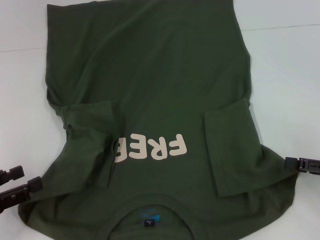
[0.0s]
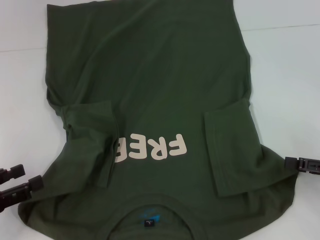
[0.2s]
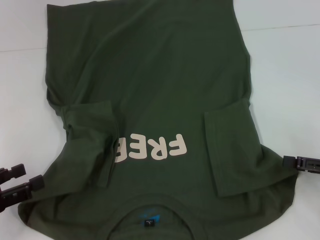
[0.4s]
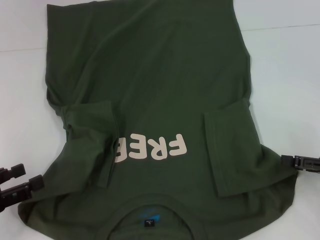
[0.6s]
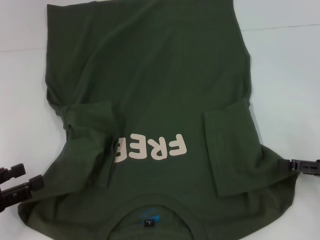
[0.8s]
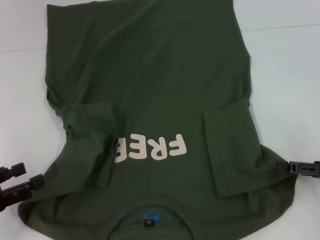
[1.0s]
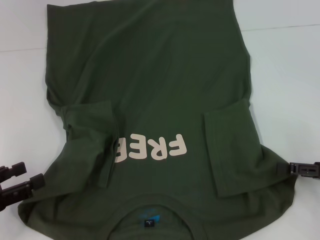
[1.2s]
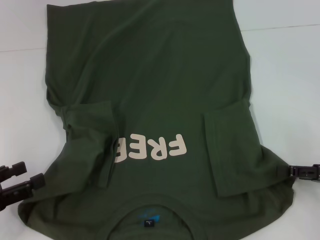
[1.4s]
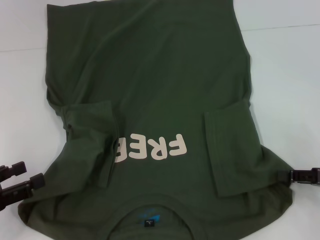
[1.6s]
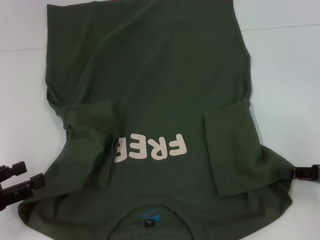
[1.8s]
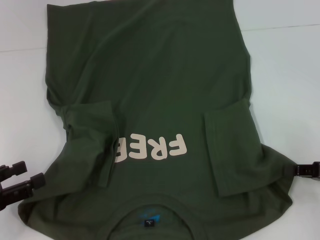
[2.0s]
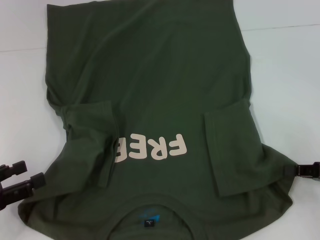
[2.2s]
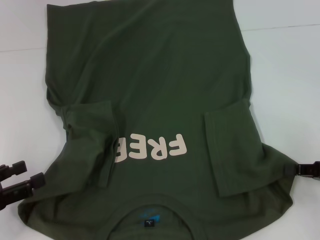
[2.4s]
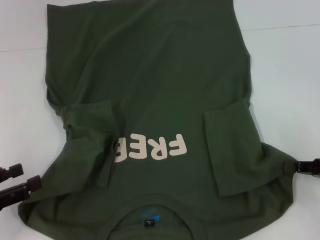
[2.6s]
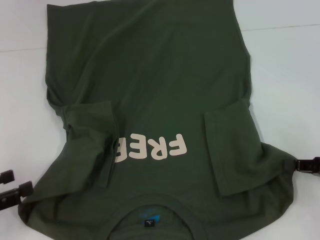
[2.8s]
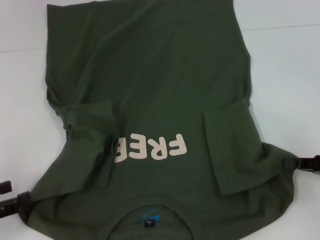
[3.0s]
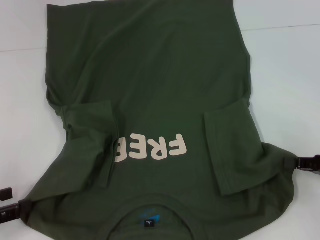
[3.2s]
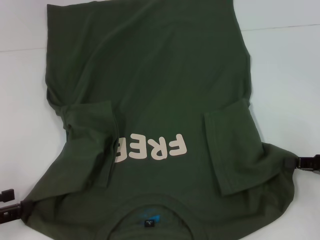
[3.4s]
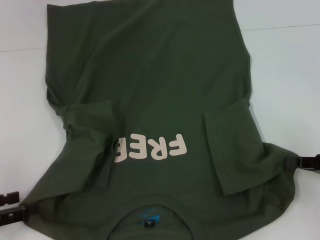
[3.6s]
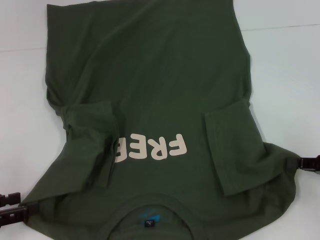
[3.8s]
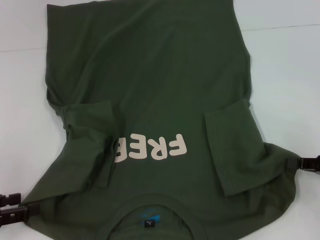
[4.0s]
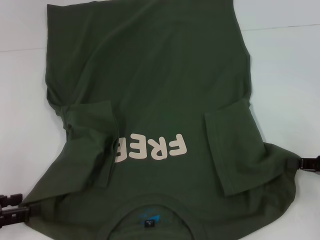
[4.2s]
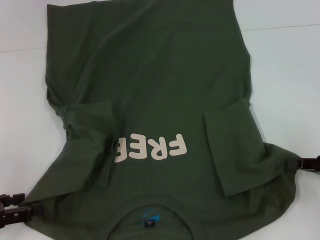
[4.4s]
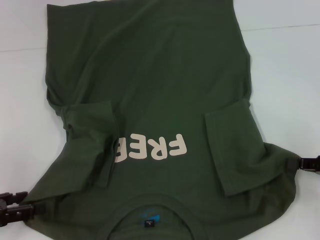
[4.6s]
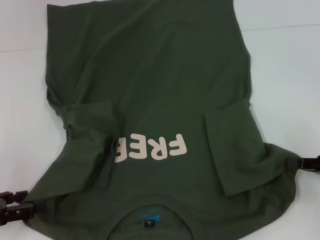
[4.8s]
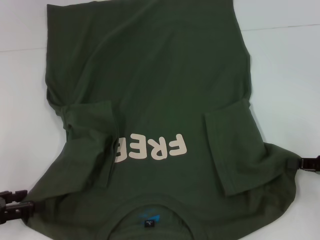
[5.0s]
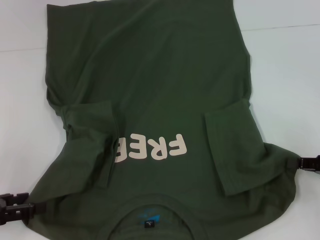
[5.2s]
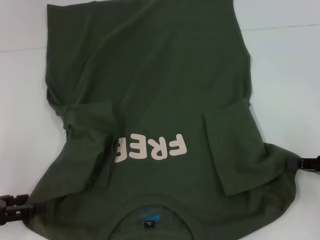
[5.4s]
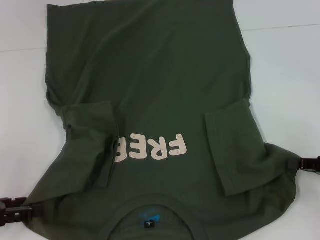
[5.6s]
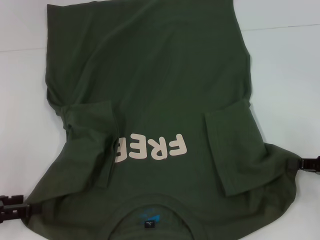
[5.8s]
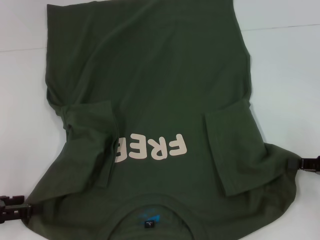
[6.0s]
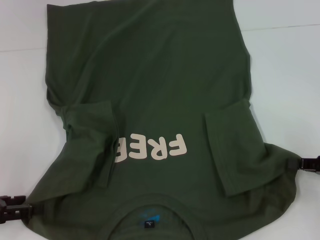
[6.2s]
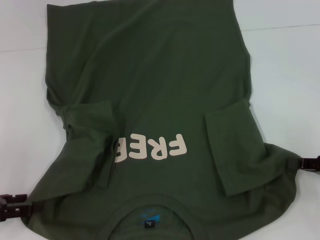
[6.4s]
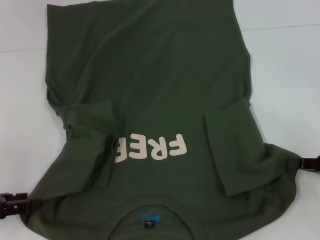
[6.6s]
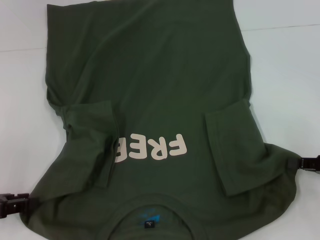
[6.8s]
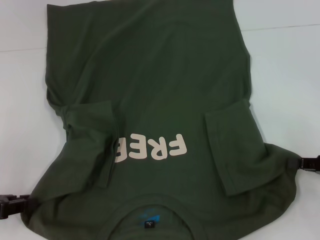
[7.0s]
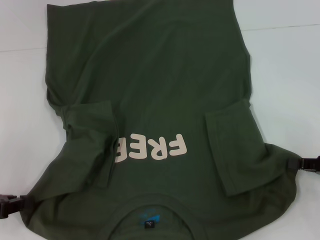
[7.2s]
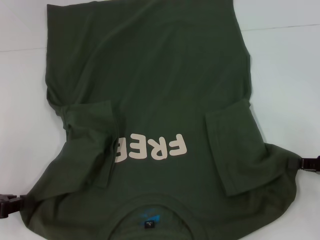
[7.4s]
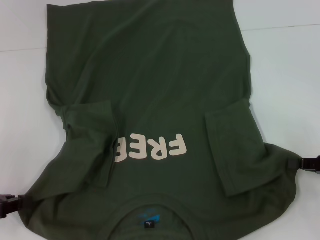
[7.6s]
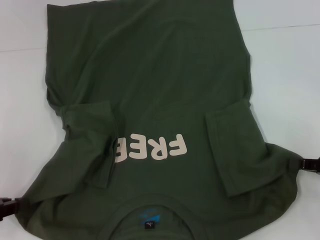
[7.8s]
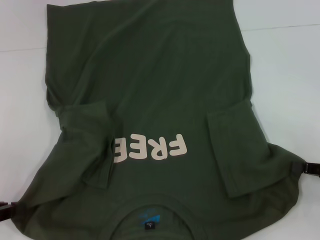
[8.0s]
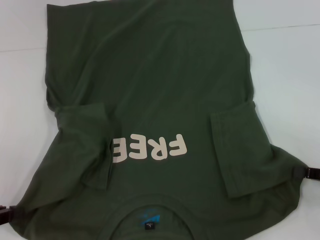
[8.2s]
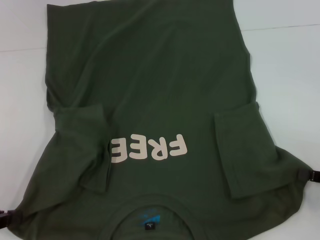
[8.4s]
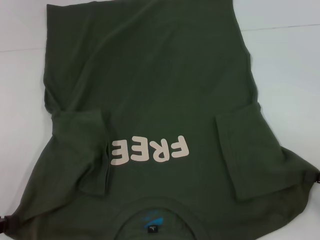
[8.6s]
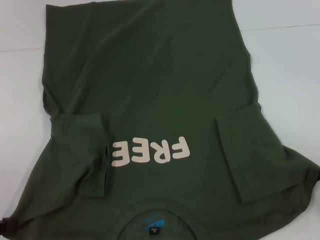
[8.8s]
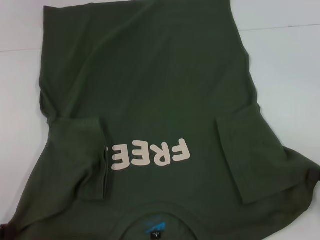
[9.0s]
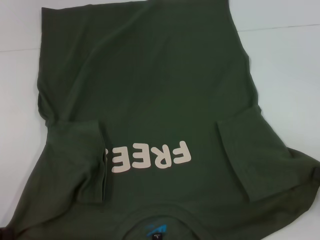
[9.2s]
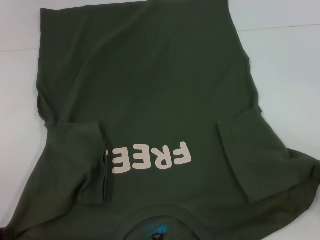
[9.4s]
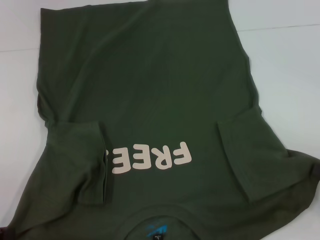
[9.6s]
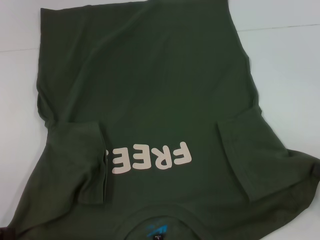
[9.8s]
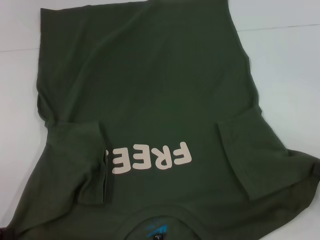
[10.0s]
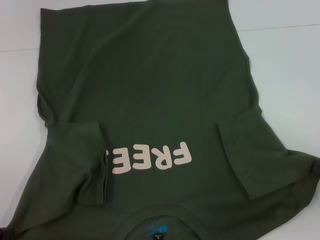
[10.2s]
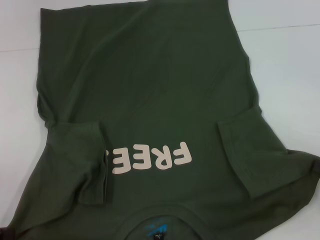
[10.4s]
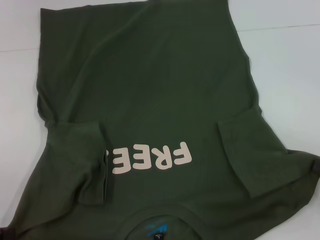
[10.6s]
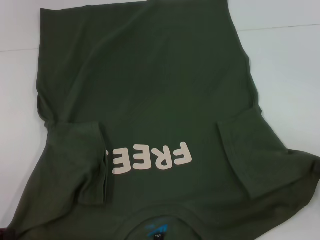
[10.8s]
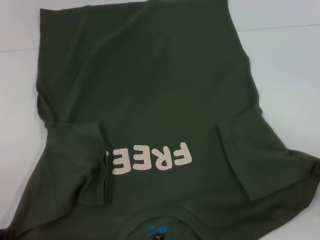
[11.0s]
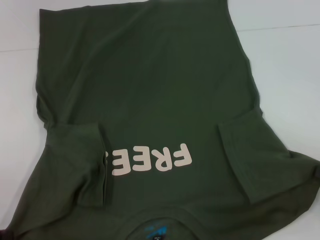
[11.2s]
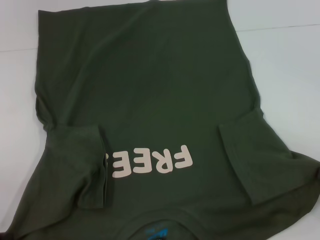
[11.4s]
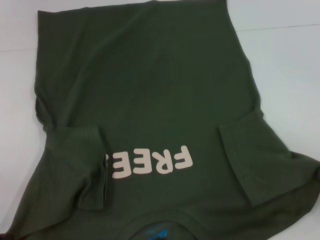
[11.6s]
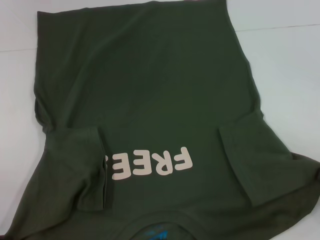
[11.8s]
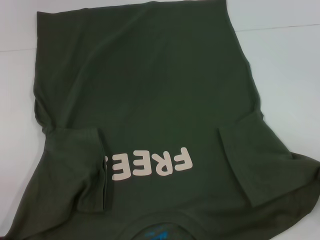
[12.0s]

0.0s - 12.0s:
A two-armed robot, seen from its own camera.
0.0s - 1.6s: The grippers move only a little.
1.6s - 3.0s: The right gripper closes up.
3.0s - 4.4s: There are only small adjustments of the grippers.
6.0s - 7.6s: The left gripper closes.
7.6s - 9.0s: The right gripper travels backward by some 5 cm.
9.0s - 10.4s: The two grippers keep their place.
10.4s - 12.0s: There are only small adjustments of the grippers.

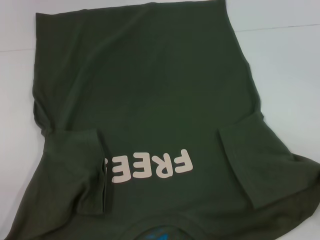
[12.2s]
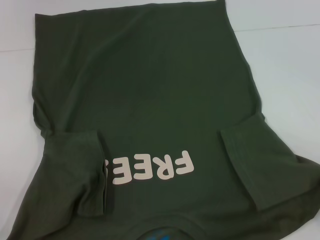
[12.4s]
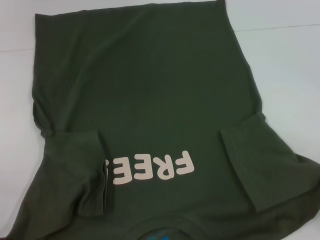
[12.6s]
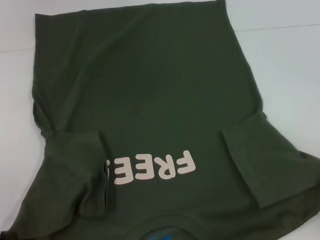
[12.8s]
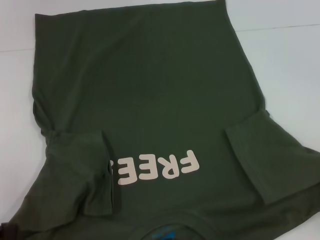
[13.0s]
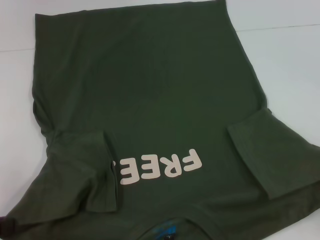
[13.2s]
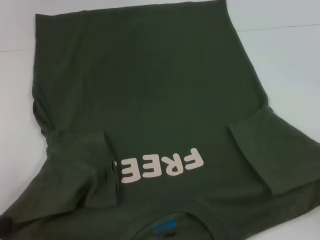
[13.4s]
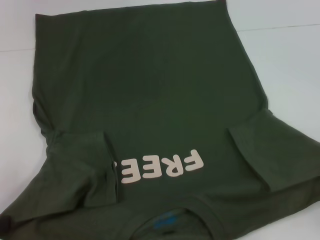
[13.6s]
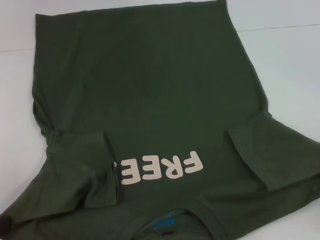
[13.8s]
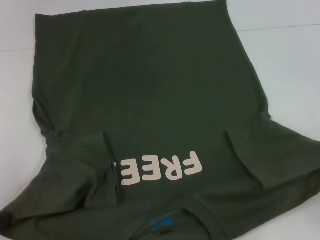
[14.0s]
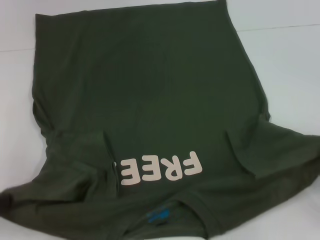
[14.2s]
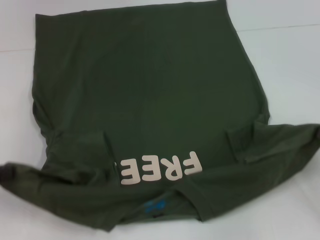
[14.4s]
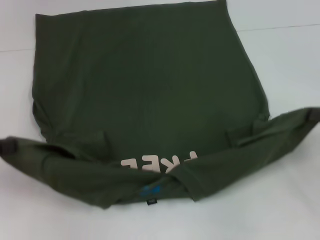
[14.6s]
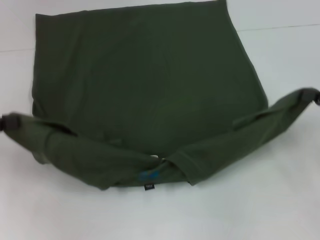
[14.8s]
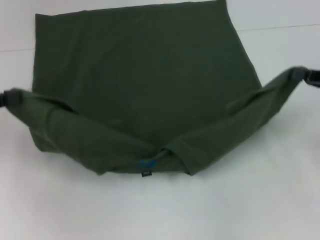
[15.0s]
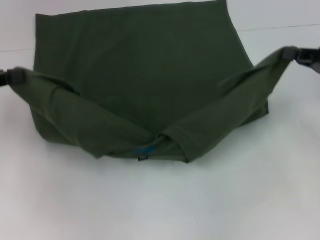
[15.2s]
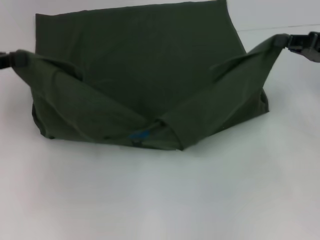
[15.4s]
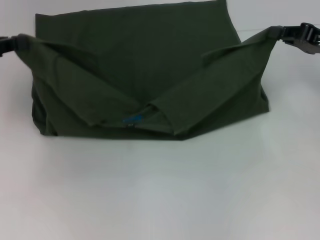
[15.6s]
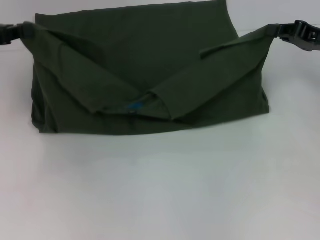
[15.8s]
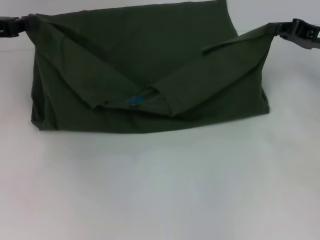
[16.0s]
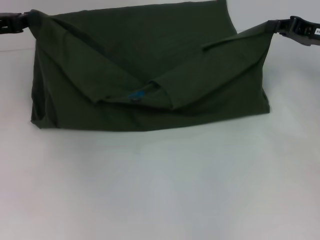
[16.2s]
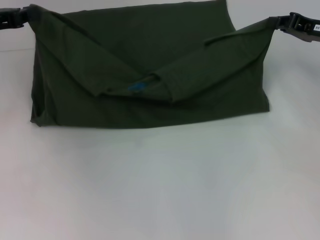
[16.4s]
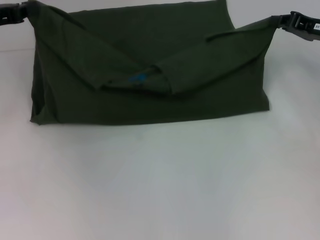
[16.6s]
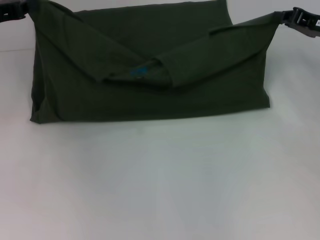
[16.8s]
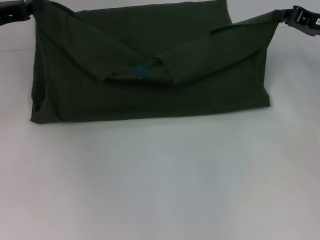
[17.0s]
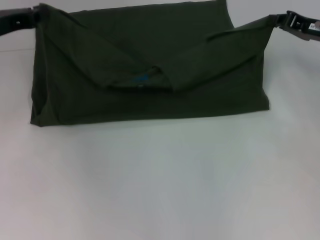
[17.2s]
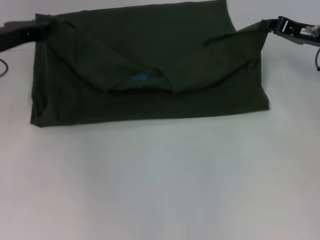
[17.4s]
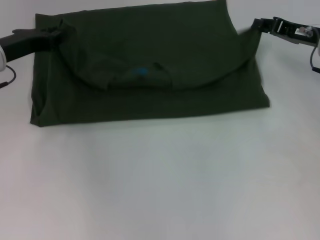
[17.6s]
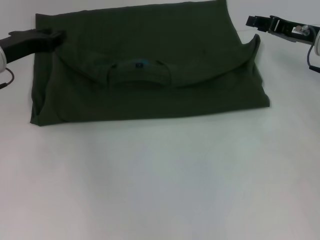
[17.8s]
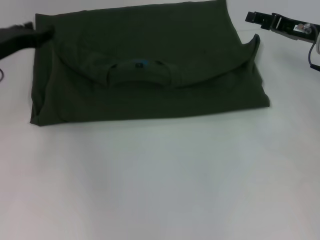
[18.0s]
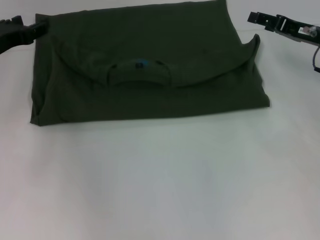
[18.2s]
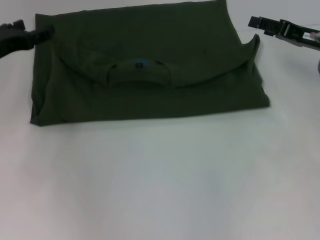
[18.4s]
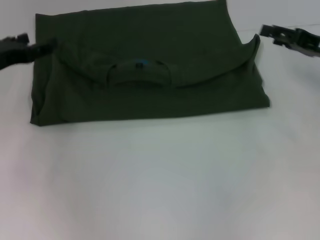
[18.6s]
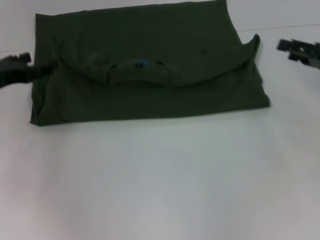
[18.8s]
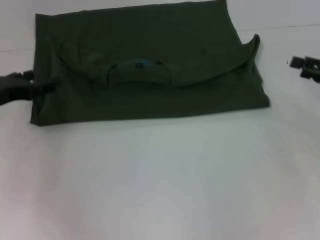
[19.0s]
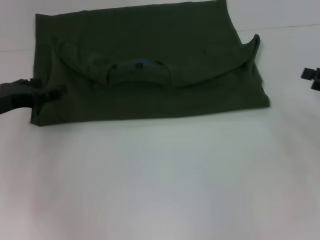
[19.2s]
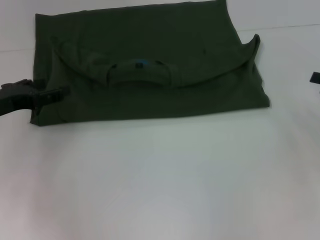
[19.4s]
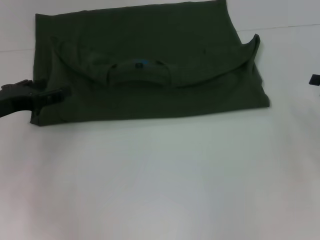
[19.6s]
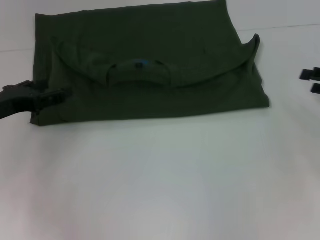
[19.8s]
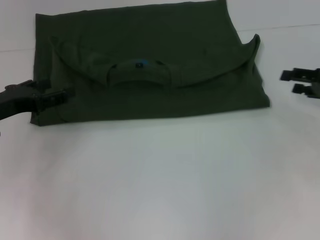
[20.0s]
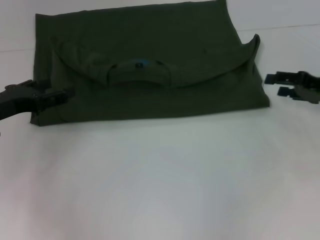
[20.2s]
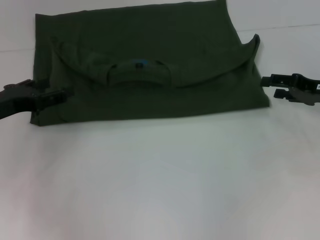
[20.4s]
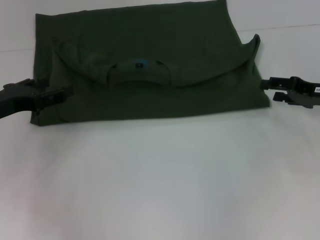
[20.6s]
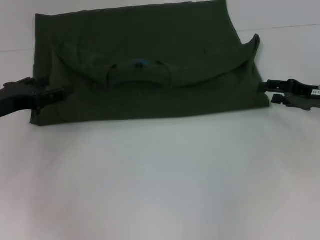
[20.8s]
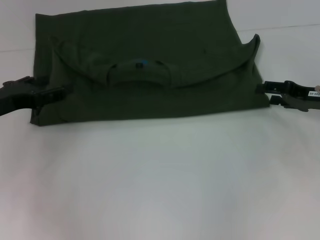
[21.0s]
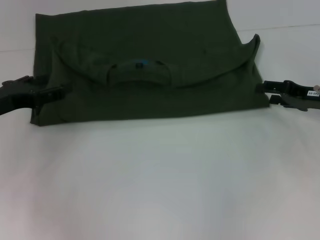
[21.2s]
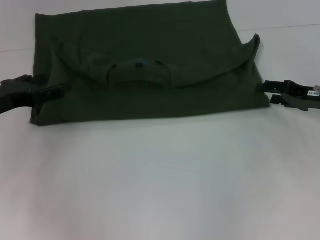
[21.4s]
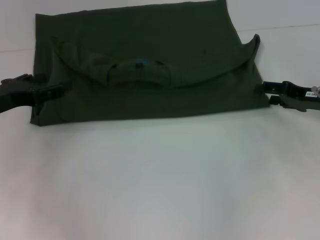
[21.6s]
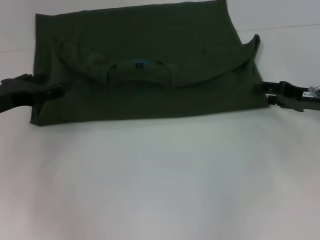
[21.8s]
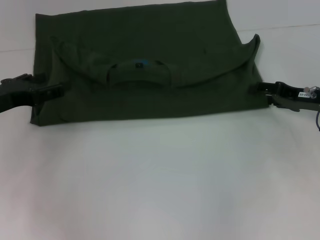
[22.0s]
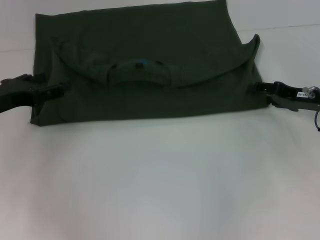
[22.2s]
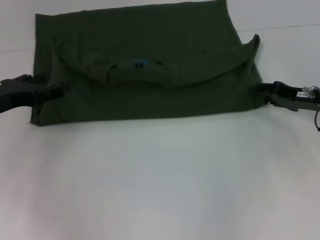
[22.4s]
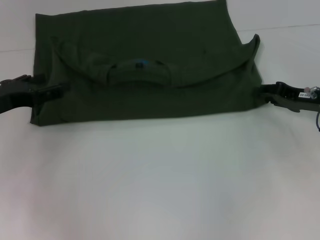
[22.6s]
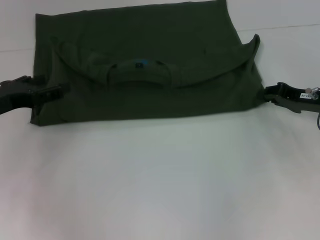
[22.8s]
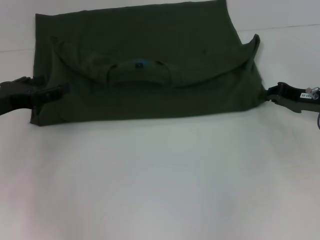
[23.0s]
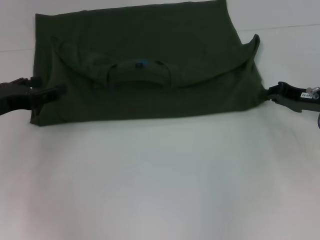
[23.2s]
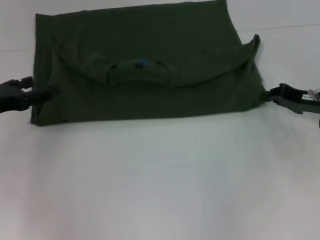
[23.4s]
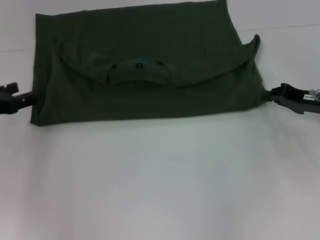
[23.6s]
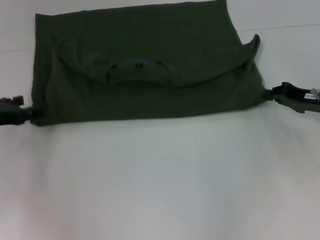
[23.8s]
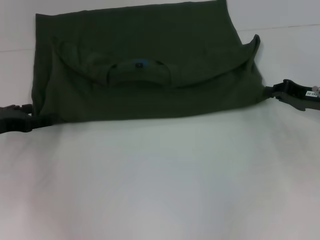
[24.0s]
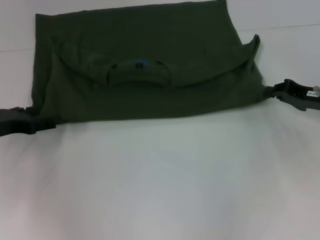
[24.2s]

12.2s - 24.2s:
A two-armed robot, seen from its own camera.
12.2s - 13.8s: There are only small adjustments of the grippers.
13.8s - 15.2s: Both grippers travel together forward and upward, about 20 cm.
15.2s - 16.6s: The left gripper moves forward and to the right, some 10 cm. Meanwhile the right gripper is displaced forward by about 10 cm.
16.6s - 18.2s: The right gripper opens. The left gripper changes place by about 5 cm, and opens.
18.2s - 19.8s: The right gripper travels backward and to the right by roughly 10 cm, while the left gripper moves backward, some 5 cm.
19.8s - 21.2s: The right gripper shifts roughly 5 cm to the left.
21.2s - 22.6s: There are only small adjustments of the grippers.
22.6s - 24.2s: The right gripper closes its fingers.
